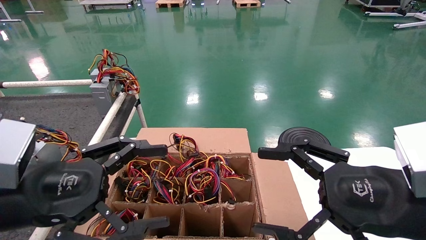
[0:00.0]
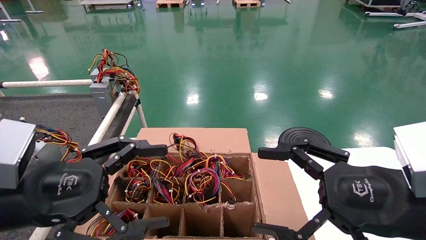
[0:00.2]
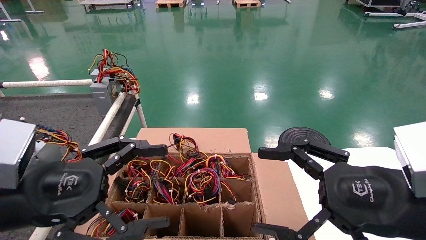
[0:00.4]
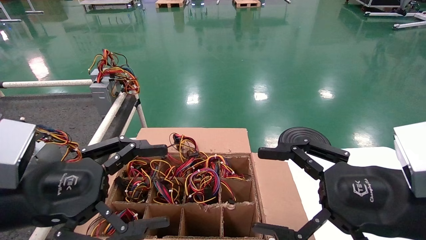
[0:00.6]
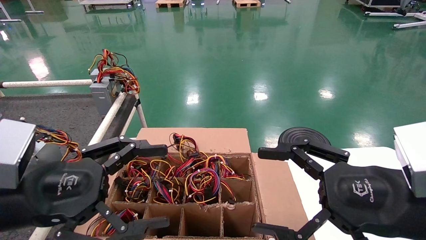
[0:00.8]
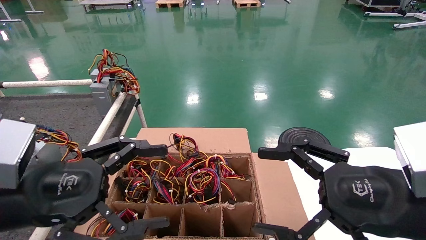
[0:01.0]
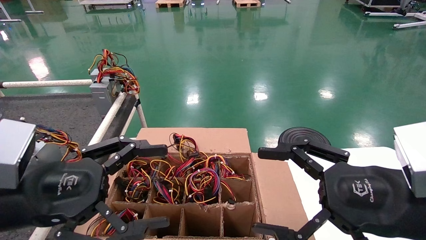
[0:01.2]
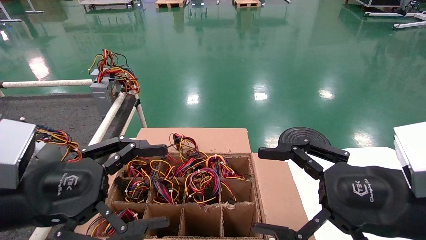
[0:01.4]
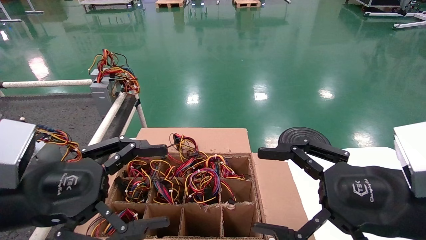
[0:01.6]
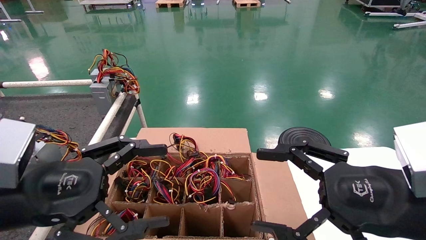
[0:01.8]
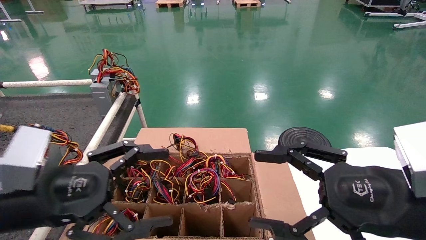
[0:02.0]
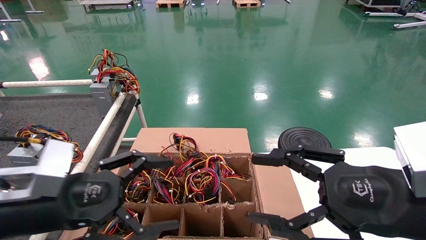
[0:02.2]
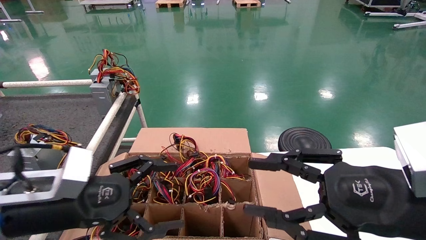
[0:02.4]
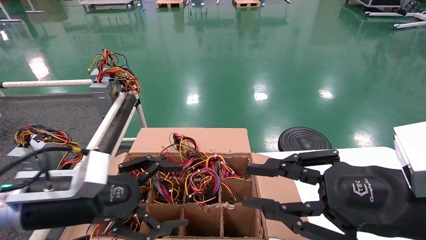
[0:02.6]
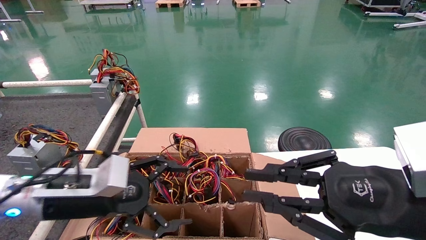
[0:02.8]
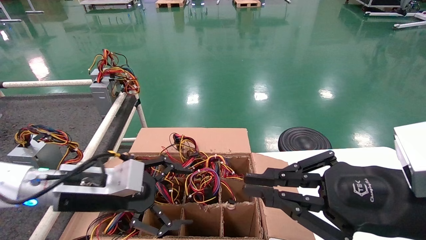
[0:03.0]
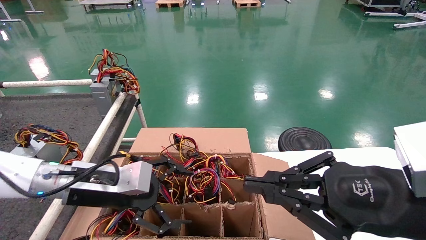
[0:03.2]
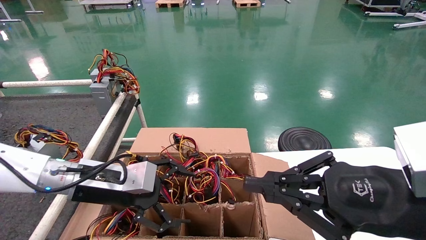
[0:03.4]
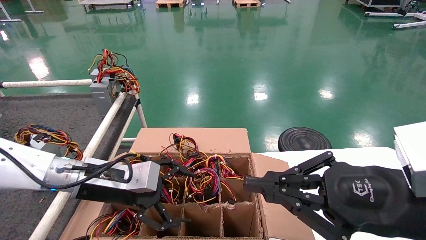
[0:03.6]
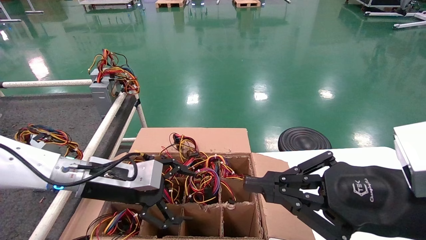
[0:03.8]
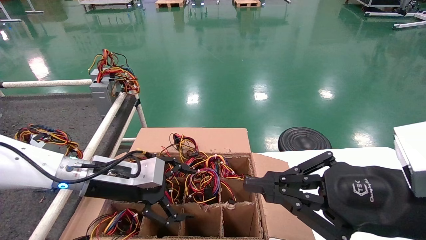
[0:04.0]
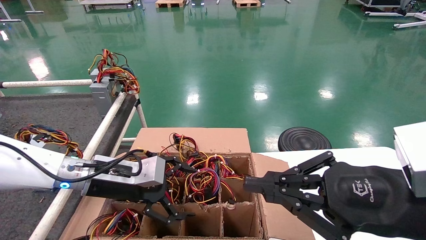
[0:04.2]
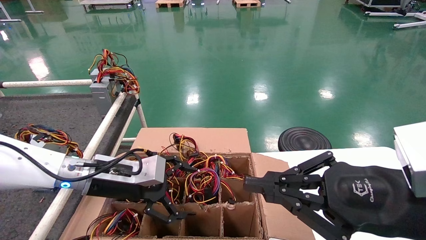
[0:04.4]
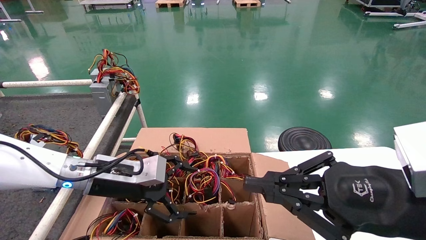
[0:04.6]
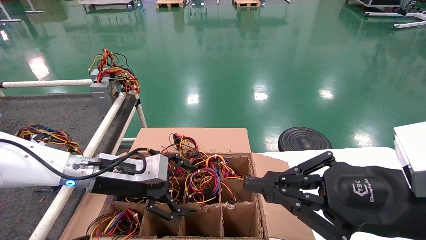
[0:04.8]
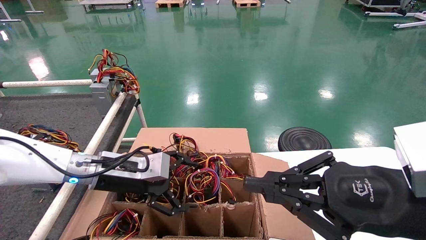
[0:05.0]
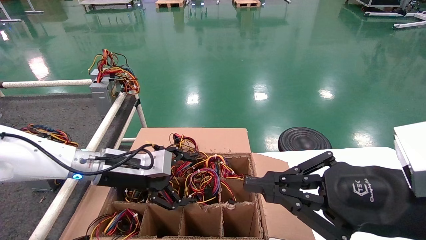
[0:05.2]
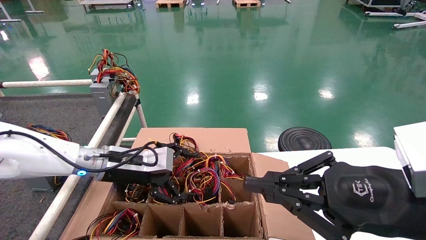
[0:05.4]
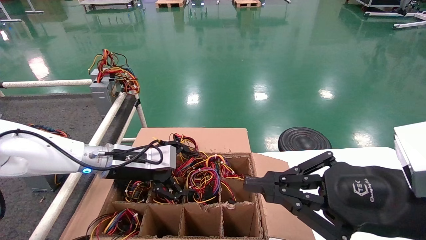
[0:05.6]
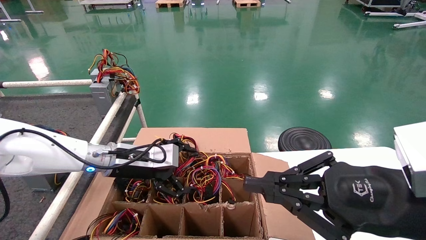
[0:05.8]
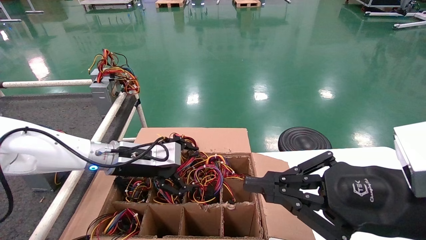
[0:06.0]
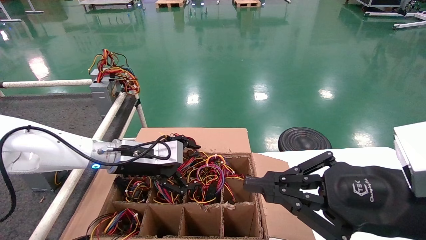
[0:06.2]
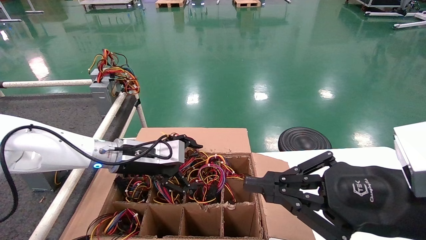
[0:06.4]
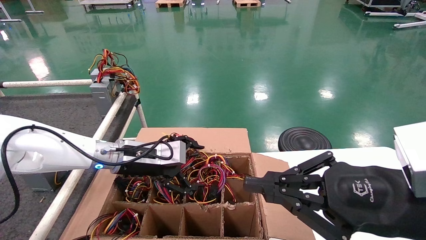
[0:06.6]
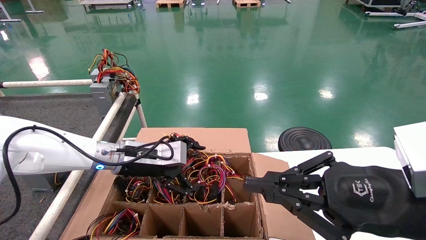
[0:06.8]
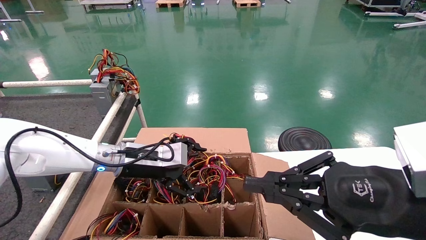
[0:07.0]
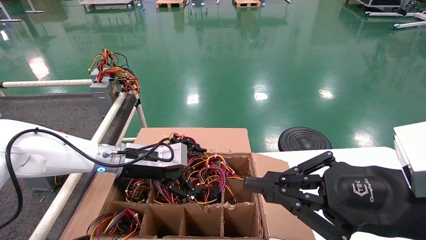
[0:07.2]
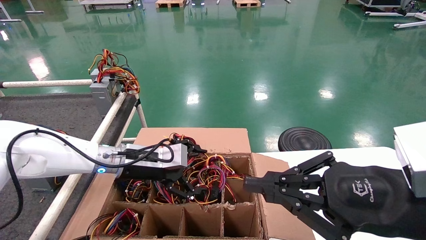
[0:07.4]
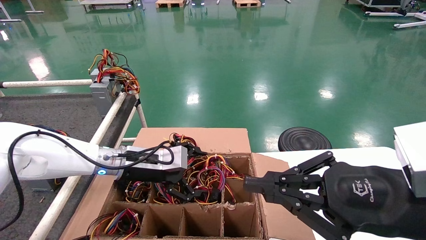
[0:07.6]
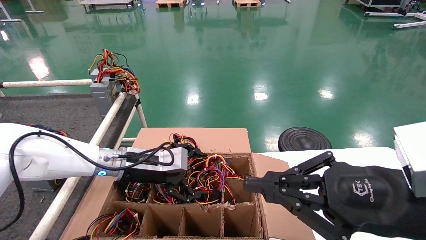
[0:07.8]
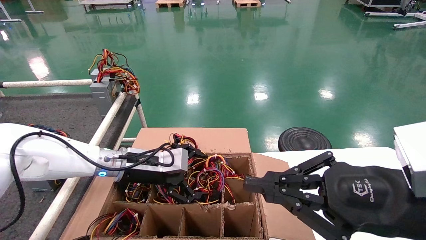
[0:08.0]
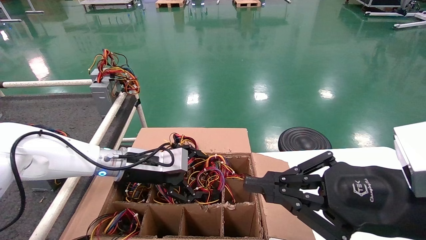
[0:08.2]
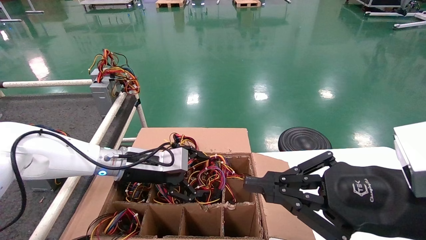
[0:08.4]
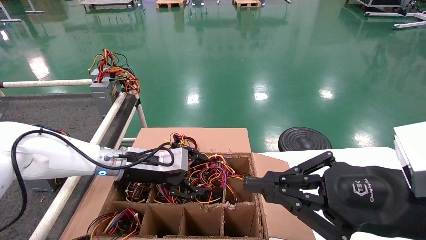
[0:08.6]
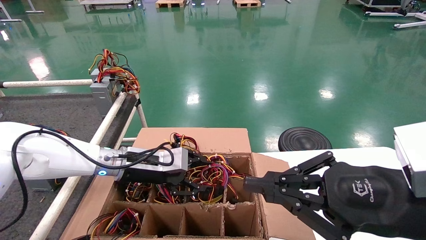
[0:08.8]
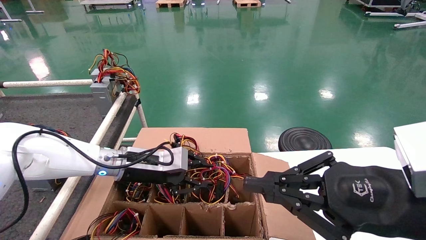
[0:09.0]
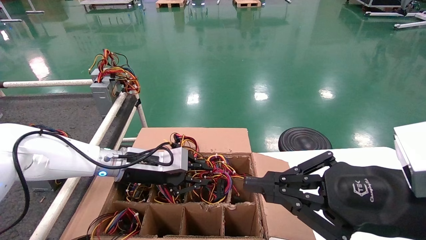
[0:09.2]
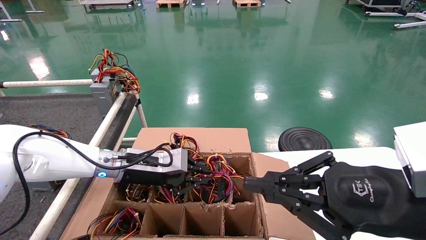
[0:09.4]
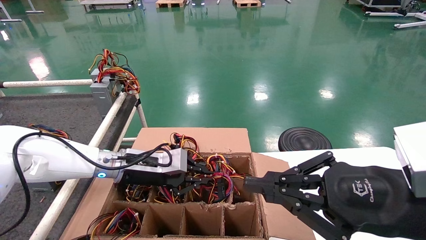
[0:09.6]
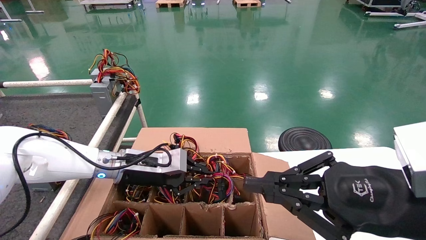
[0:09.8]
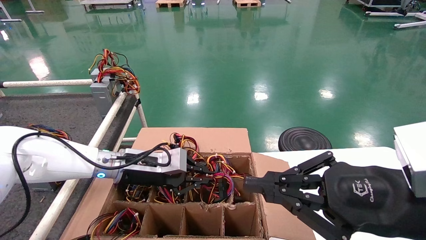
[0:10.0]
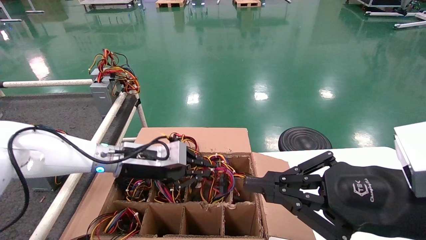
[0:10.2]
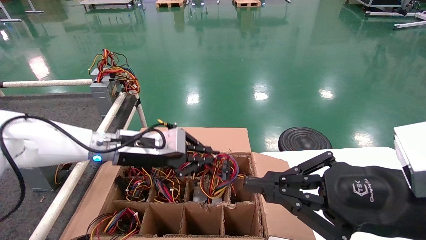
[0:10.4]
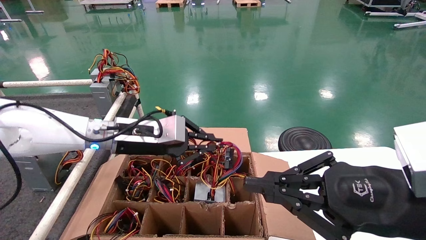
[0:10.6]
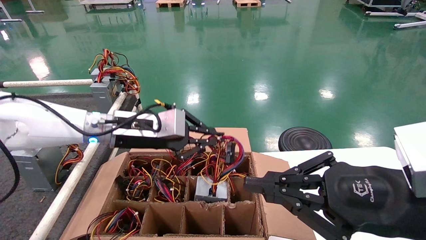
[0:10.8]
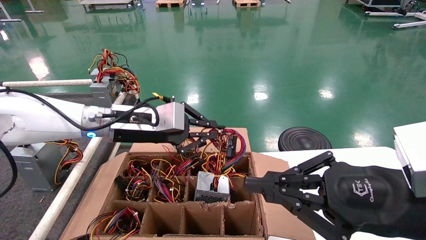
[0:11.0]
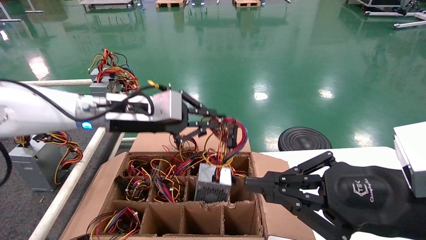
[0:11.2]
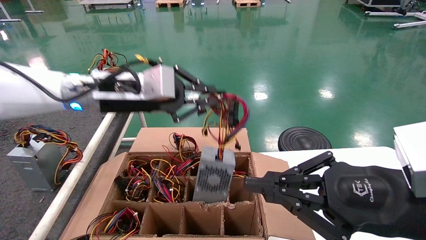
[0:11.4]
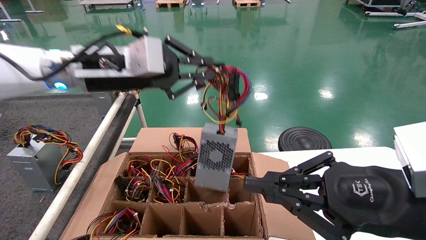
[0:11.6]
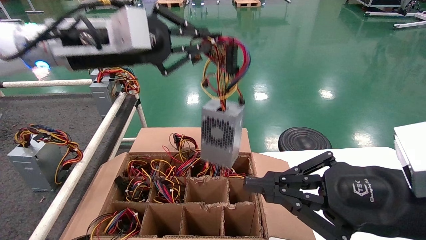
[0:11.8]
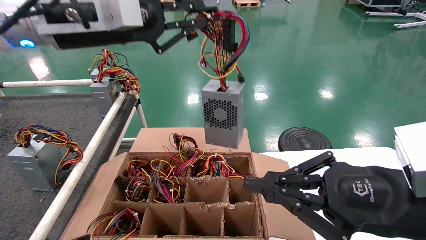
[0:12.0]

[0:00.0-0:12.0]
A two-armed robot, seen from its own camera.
Step, 0:02.2 to 0:09.8: Grab and lift the power supply from the large box.
0:00.0 to 0:01.6: Both grippers stay about where they are.
0:01.6 to 0:03.0: The right gripper closes up. Meanwhile the left gripper is displaced forward and downward by roughly 10 cm.
0:03.0 to 0:04.4: The left gripper shifts some 5 cm forward.
0:04.4 to 0:06.0: The left gripper shifts about 5 cm forward.
0:06.0 to 0:07.6: The grippers move only a little.
0:07.6 to 0:09.0: The left gripper closes.
0:09.0 to 0:10.4: The left gripper moves upward, about 5 cm, and closes up.
0:10.4 to 0:12.0: The left gripper goes about 20 cm upward.

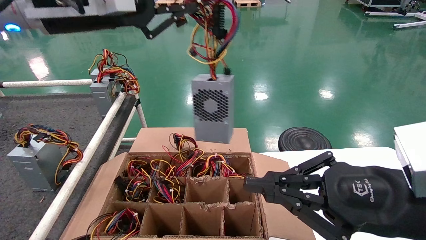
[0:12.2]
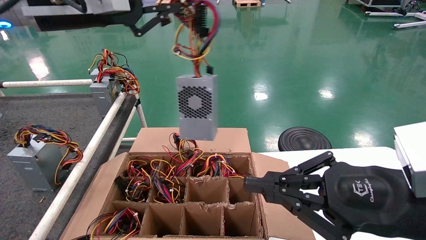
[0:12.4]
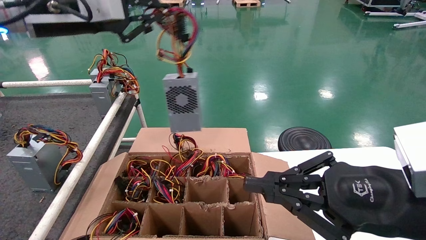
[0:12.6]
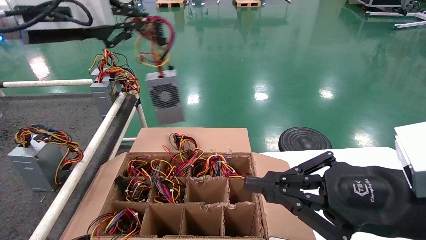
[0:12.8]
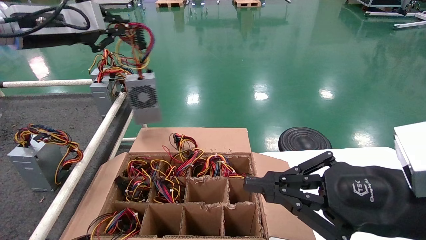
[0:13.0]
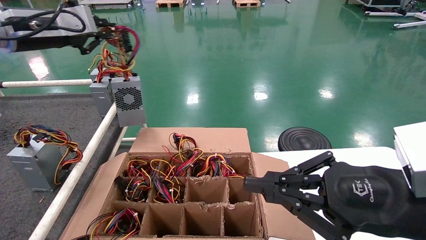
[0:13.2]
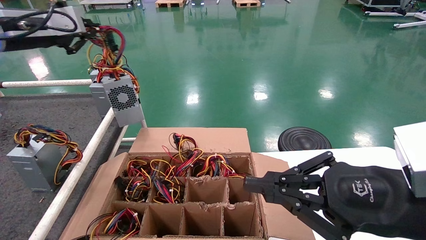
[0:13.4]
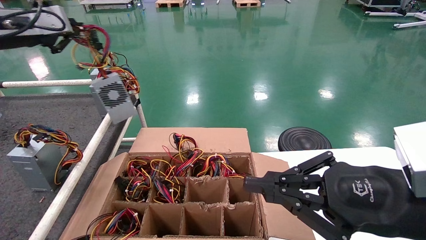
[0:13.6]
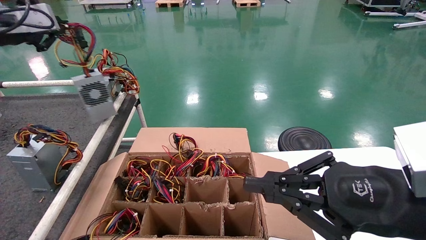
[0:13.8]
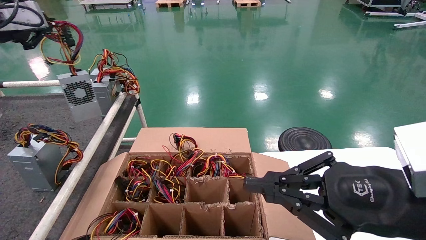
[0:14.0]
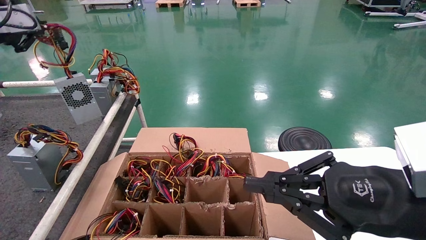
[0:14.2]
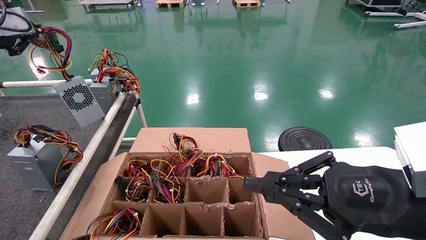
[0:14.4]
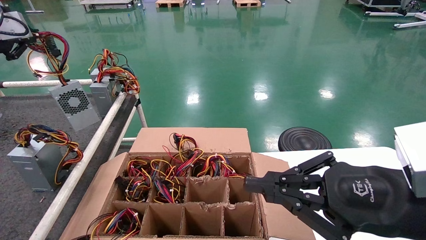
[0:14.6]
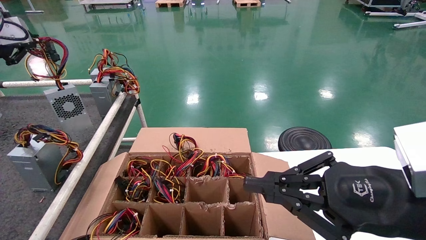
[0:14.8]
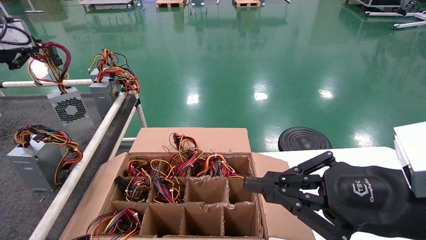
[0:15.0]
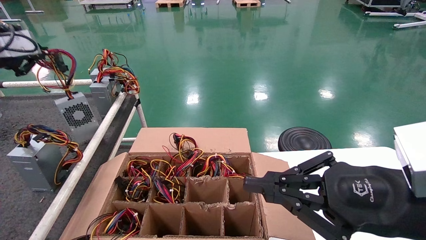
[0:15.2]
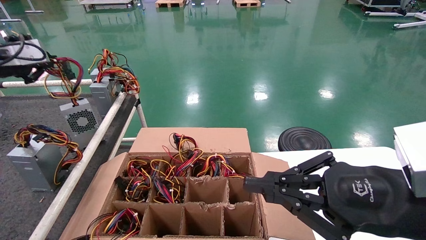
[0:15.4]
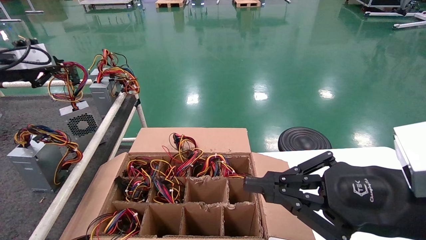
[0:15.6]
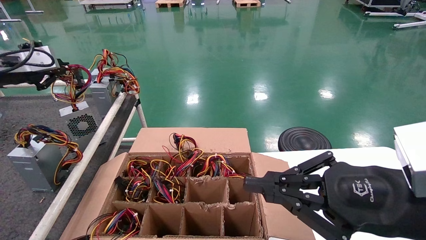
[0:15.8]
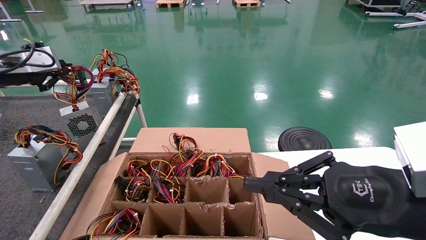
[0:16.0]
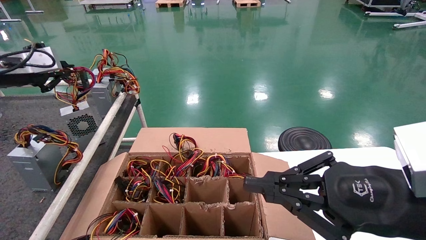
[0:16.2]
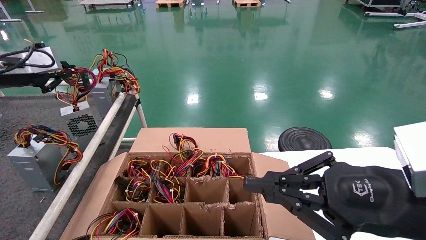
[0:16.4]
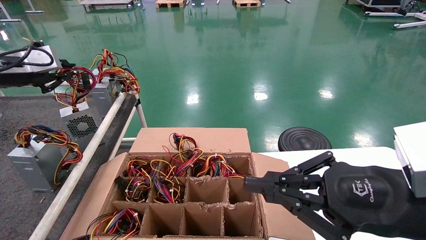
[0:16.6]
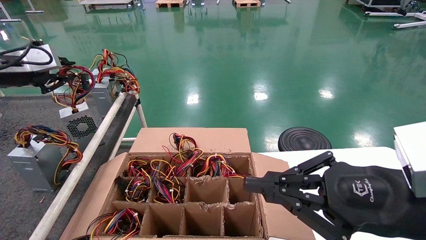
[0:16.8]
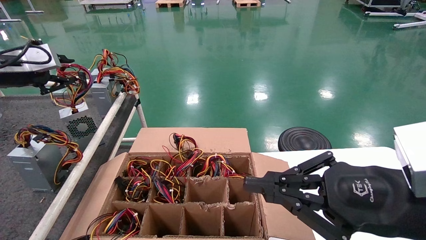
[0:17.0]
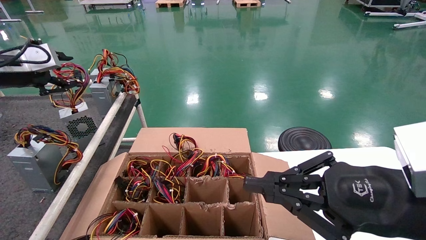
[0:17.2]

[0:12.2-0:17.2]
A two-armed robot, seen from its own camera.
Step, 0:12.2 to 0:17.0: Place the power supply on the operating table.
0:12.2 to 0:13.8: The left gripper moves to the left, approximately 20 cm.
0:13.8 to 0:15.6: The left gripper is displaced downward by about 5 cm.
0:15.6 to 0:17.2: The grippers make only small movements.
